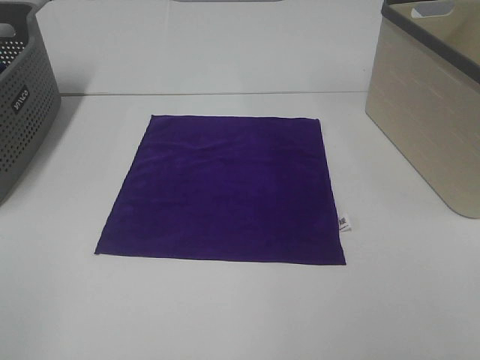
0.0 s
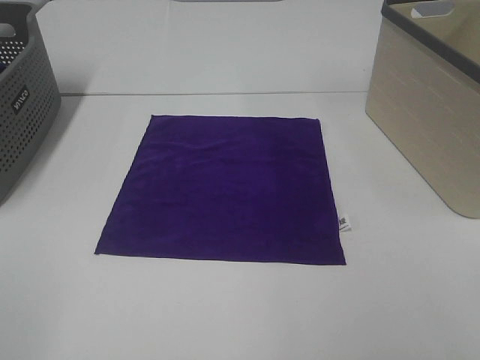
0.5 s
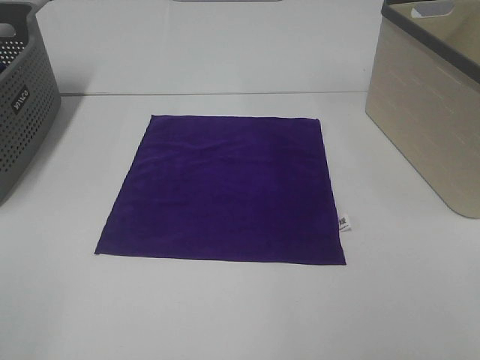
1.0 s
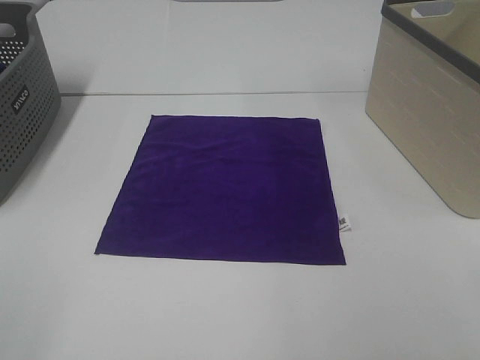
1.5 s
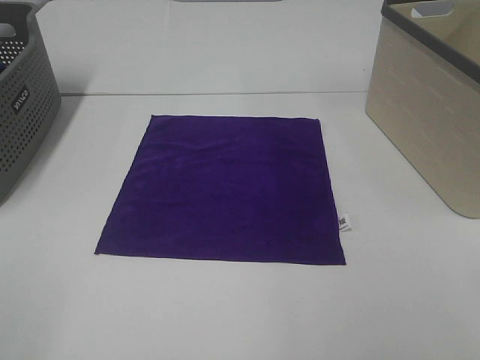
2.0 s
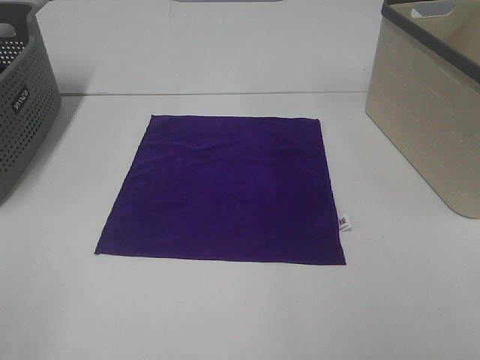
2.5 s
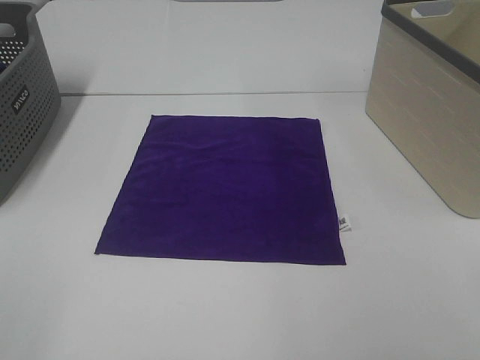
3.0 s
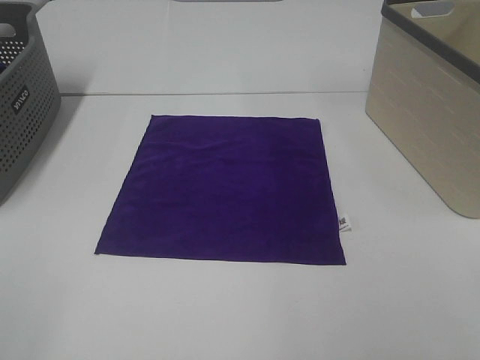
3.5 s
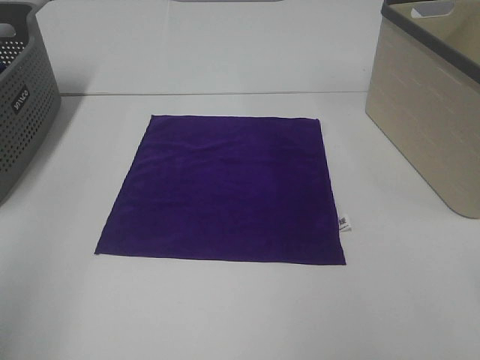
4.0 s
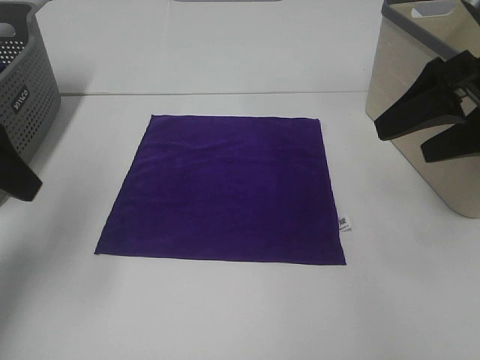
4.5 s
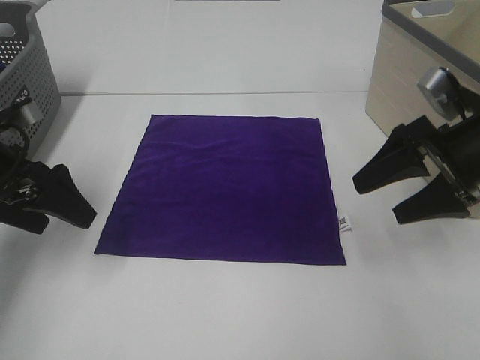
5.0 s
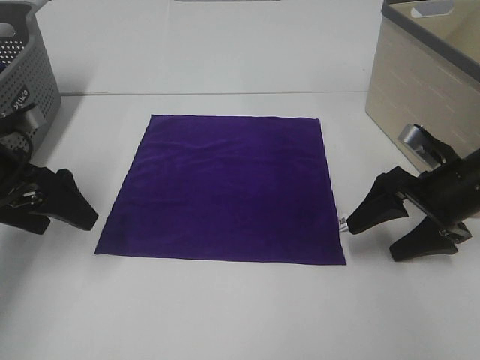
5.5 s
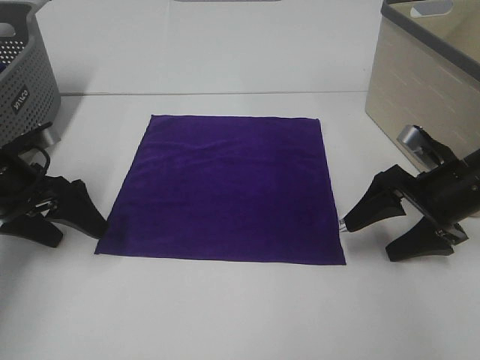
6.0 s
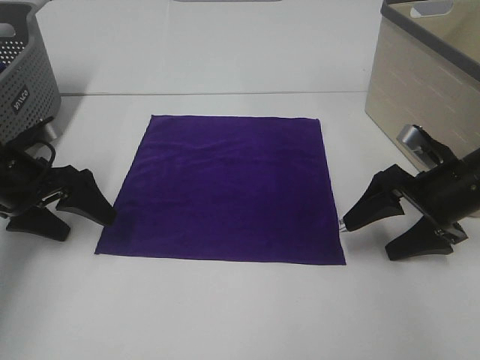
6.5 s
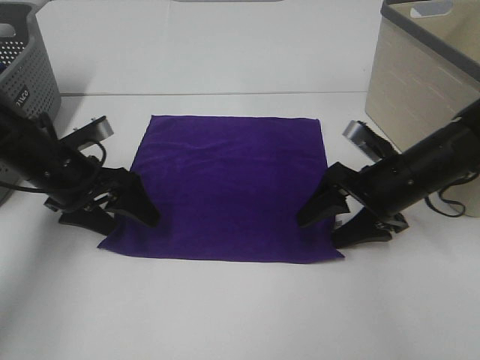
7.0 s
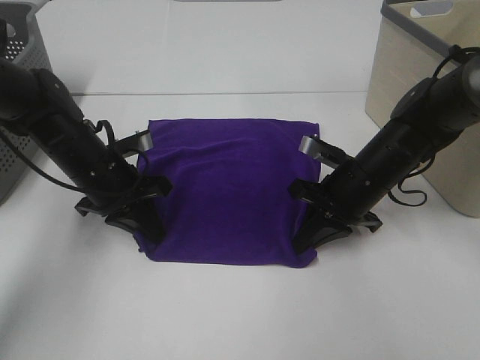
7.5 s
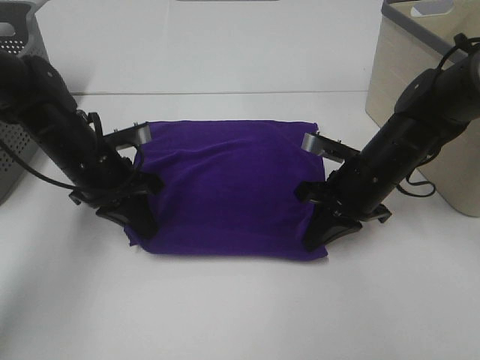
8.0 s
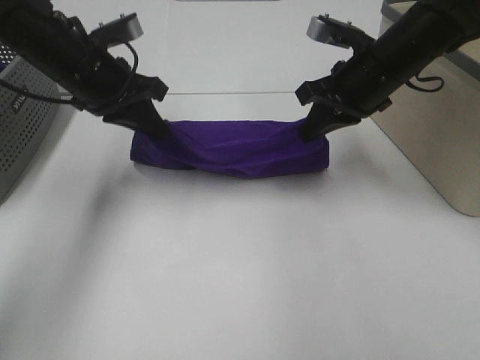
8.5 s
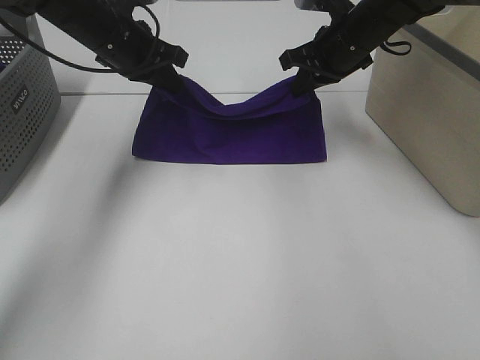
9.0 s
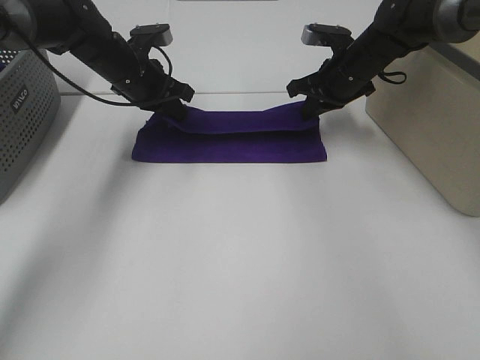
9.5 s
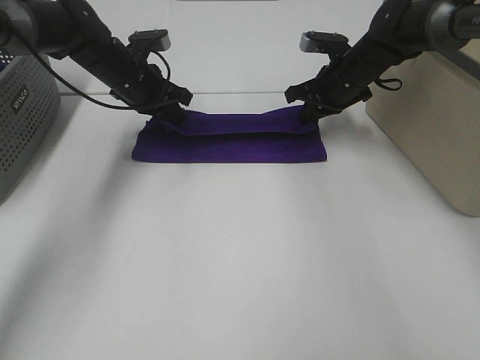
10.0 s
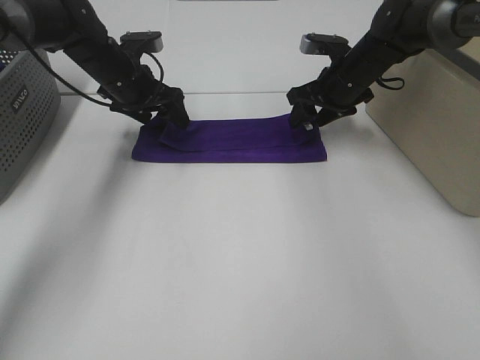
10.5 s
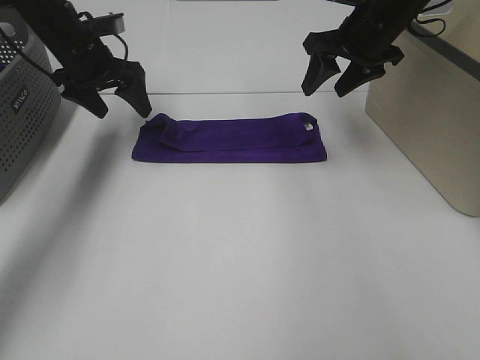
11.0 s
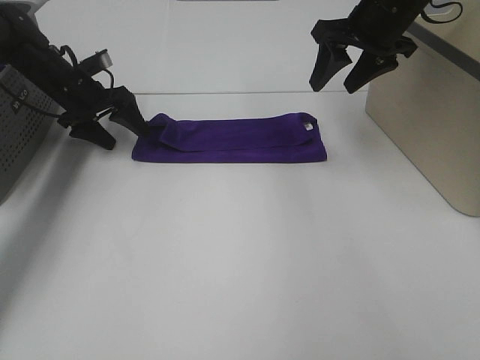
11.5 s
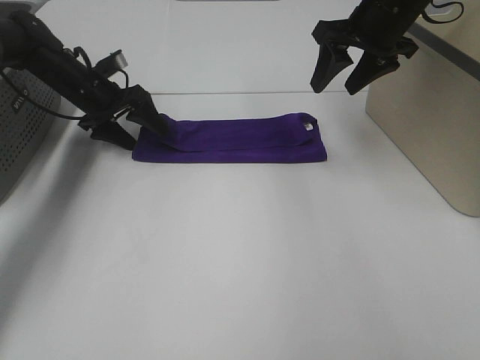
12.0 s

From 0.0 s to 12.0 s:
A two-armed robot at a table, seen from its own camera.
Task of the whole recording: Fold towels.
Step, from 0.0 s to 7.5 s: Left hand: grab the bottom left corner of purple towel.
Step, from 0.0 s to 7.5 s: Right hand: grab the bottom right corner of purple towel.
Step, from 8.0 s to 10.0 s: Left hand: fold the purple towel up.
Step, from 8.0 s to 10.0 s: Right hand: fold the purple towel up.
From 0.0 s to 2.0 s: Neither gripper changes place.
From 2.0 s to 4.0 s: The left gripper travels forward and upward by approximately 15 cm.
From 4.0 s to 6.0 s: The two grippers go roughly 30 cm downward and forward.
From 6.0 s to 8.0 s: The left gripper heads to the right, covering roughly 10 cm, and closes its fingers; the right gripper is displaced to the left by some 10 cm, and closes up.
From 8.0 s to 10.0 s: Both grippers travel together forward, roughly 15 cm.
From 10.0 s to 12.0 s: The left gripper moves to the left, approximately 5 cm, and opens. Meanwhile the right gripper is displaced upward and backward by about 15 cm, and opens.

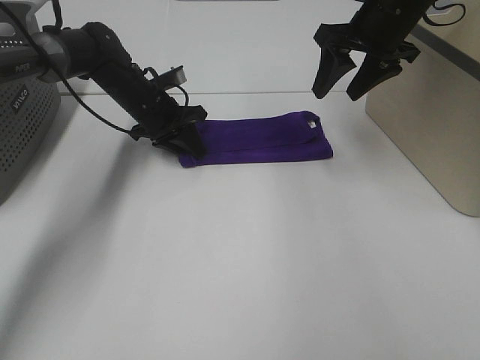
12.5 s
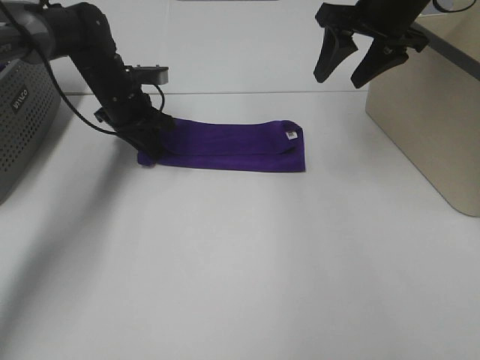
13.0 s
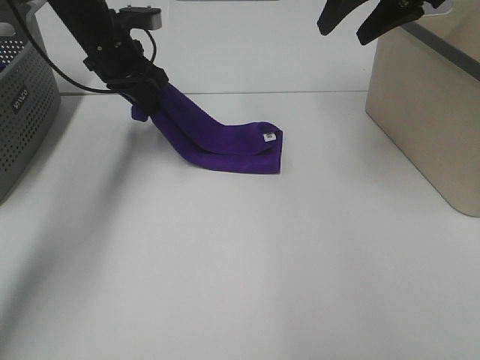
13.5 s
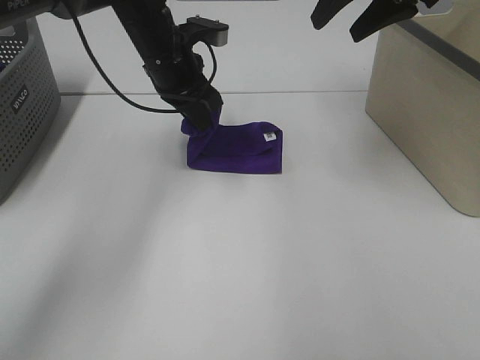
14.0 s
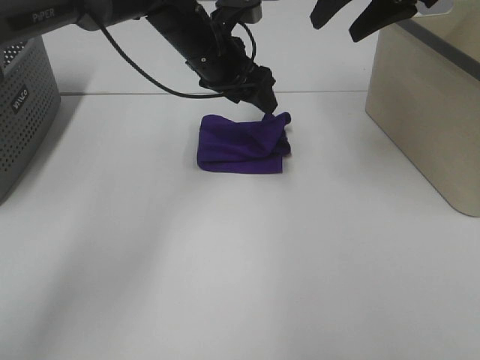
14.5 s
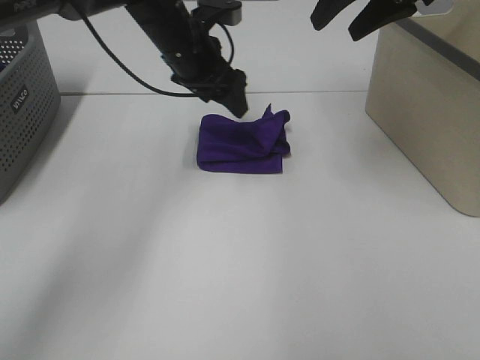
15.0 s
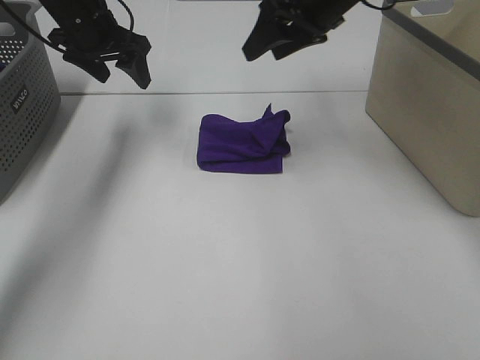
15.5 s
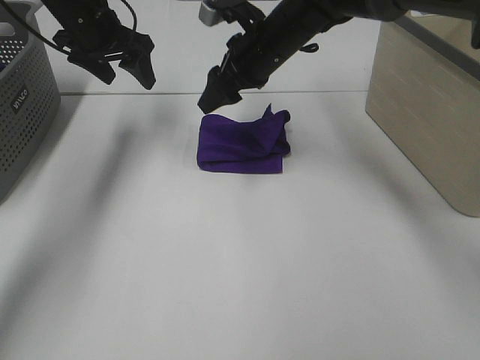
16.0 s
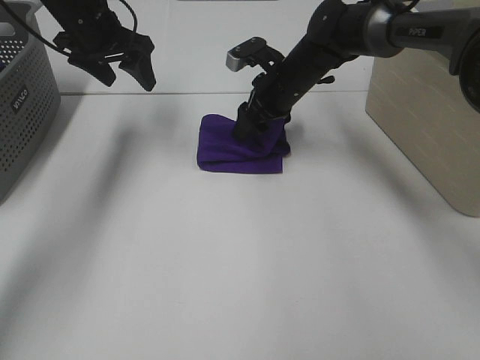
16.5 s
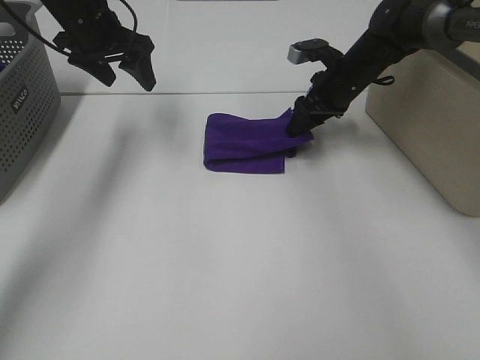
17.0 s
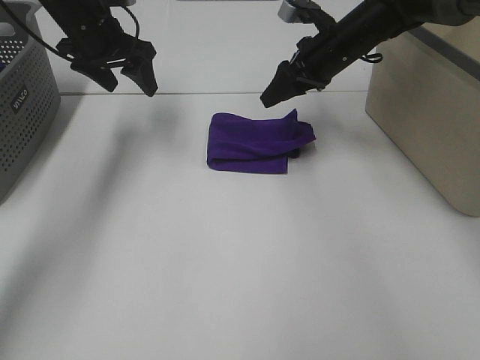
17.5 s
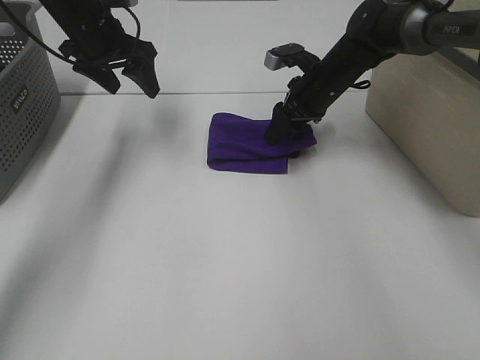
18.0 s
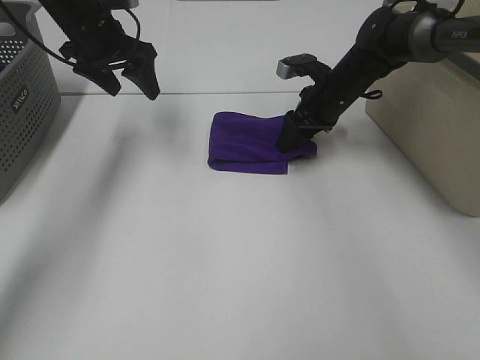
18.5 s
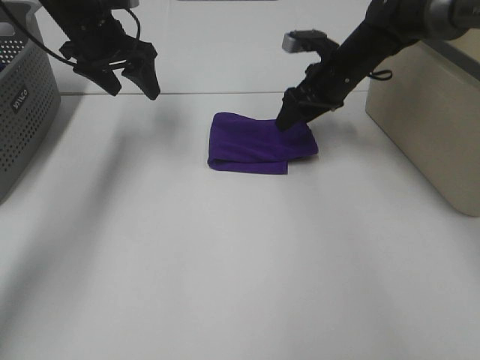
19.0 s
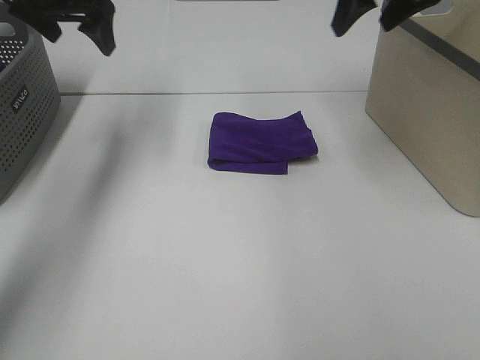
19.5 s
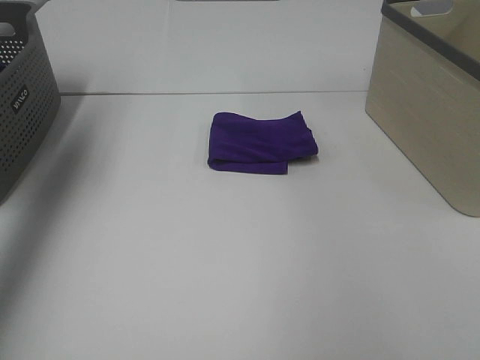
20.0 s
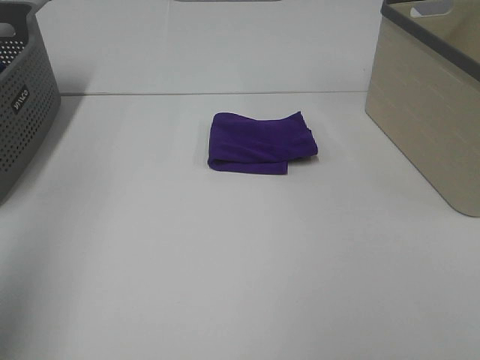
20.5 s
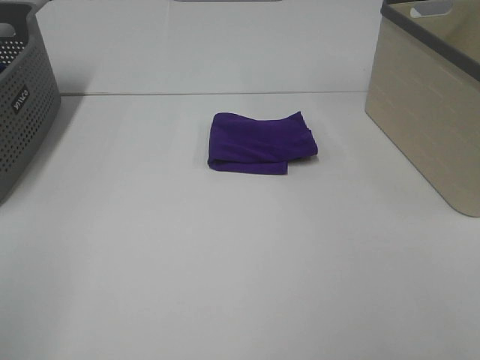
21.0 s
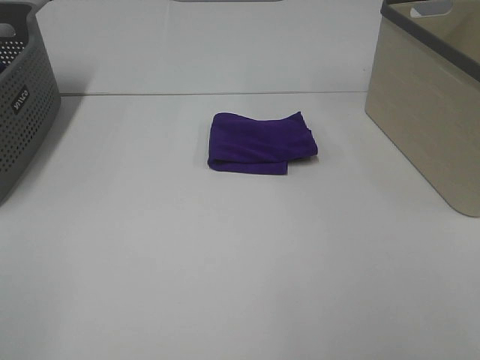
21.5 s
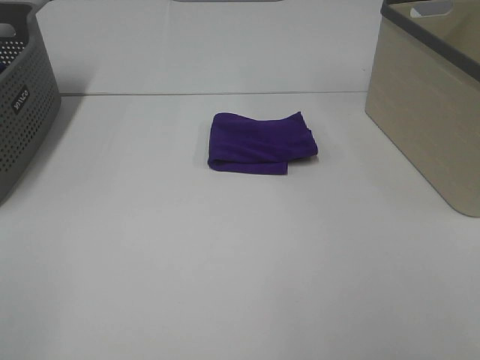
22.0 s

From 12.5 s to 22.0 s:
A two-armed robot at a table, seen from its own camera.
Task of the whole recording: Fold towels.
Step, from 14.5 s to 18.5 s: Right hand: adjust the purple towel.
From 12.5 s to 14.5 s: The left gripper is displaced upward and to the right by some 15 cm, and opens its fingers. The right gripper moves upward, some 10 cm.
From 14.5 s to 16.5 s: The right gripper moves downward and to the left, some 25 cm. Meanwhile the left gripper goes about 15 cm to the left.
From 16.5 s to 18.0 s: The right gripper moves to the right, some 5 cm.
From 18.0 s to 20.0 s: The right gripper shifts some 40 cm upward, backward and to the right, while the left gripper travels upward, to the left and backward by roughly 25 cm.
From 20.0 s to 22.0 s: The left gripper goes approximately 40 cm backward.
